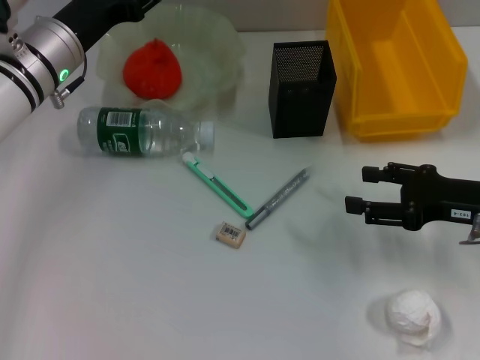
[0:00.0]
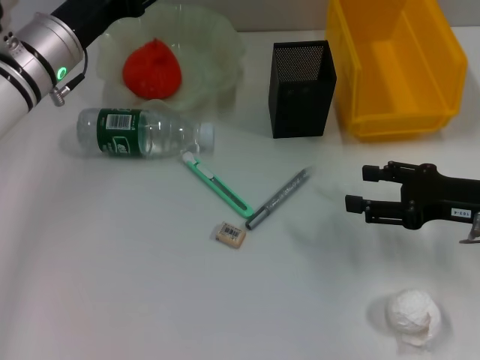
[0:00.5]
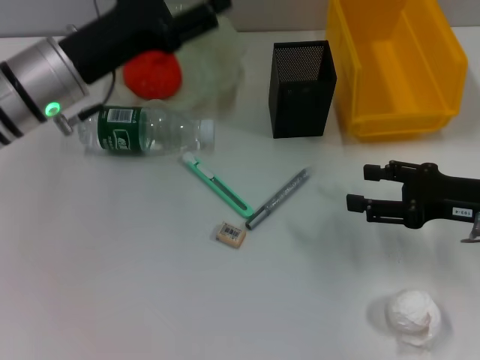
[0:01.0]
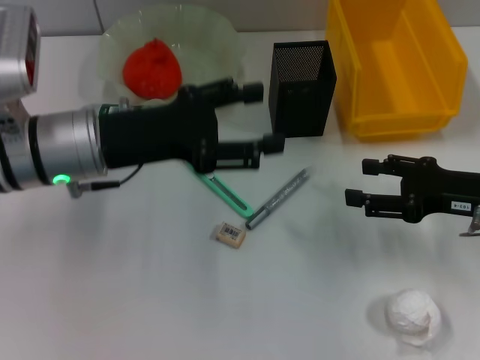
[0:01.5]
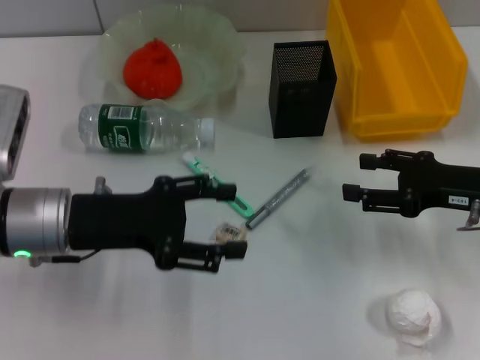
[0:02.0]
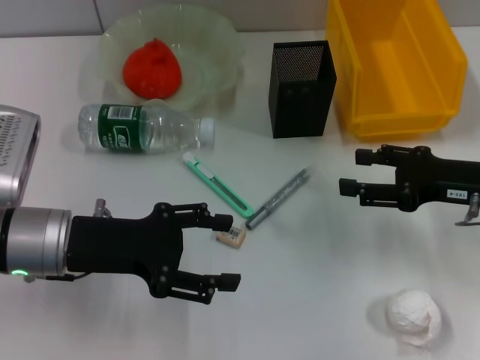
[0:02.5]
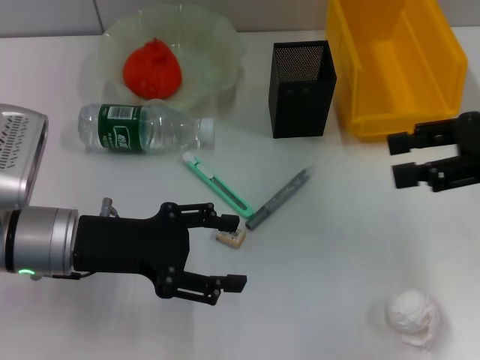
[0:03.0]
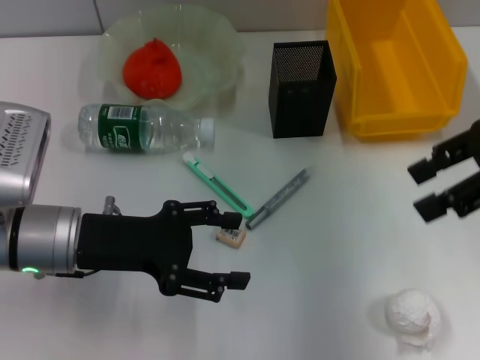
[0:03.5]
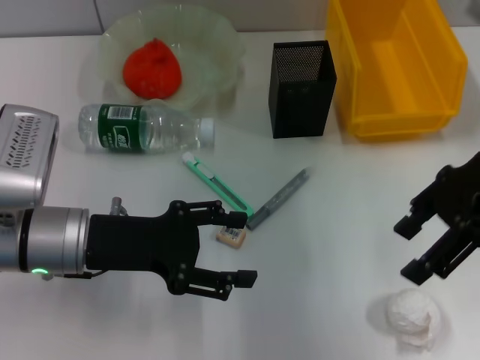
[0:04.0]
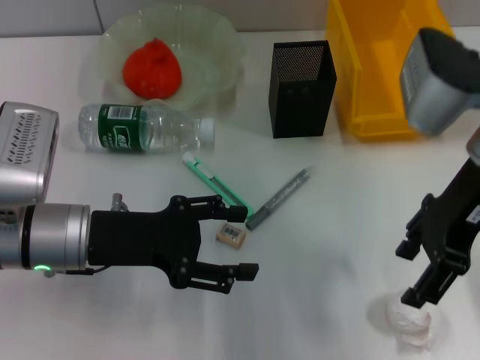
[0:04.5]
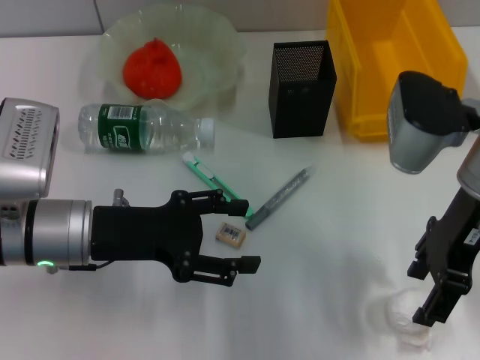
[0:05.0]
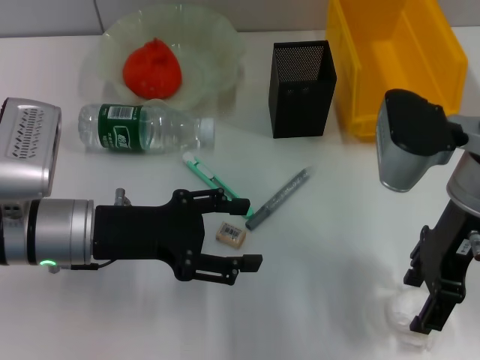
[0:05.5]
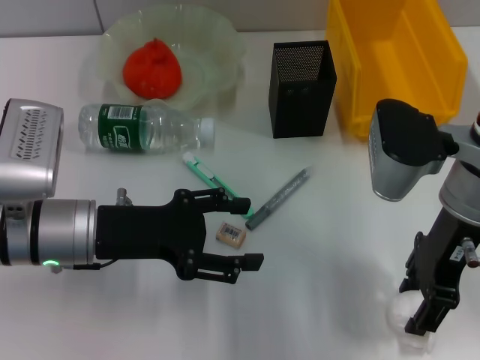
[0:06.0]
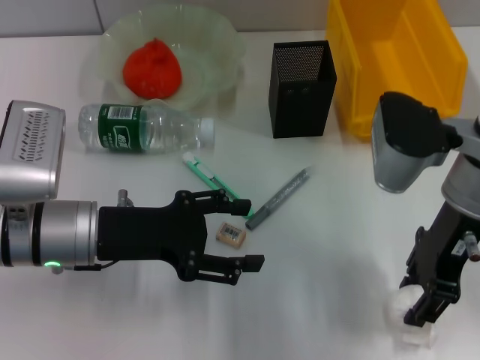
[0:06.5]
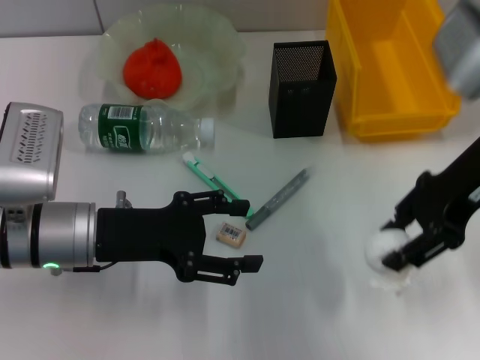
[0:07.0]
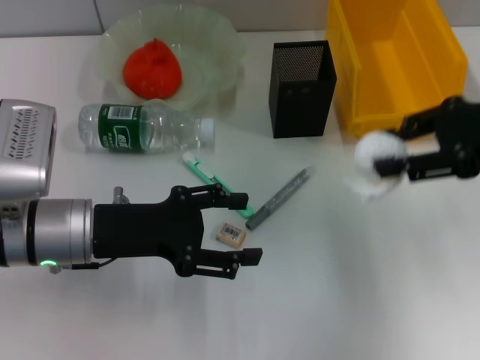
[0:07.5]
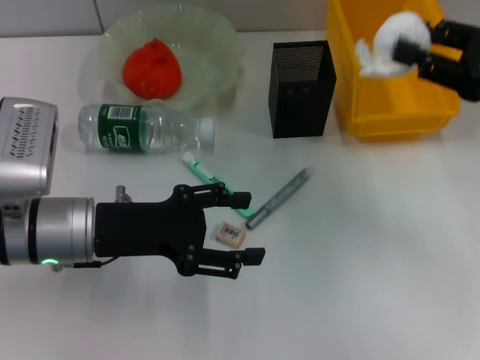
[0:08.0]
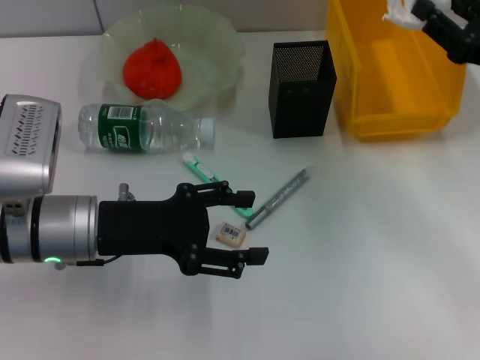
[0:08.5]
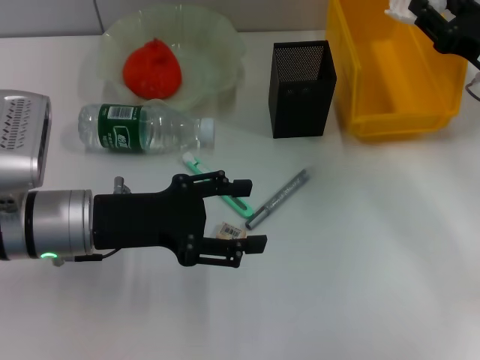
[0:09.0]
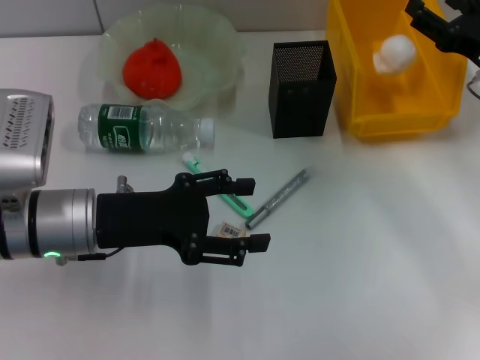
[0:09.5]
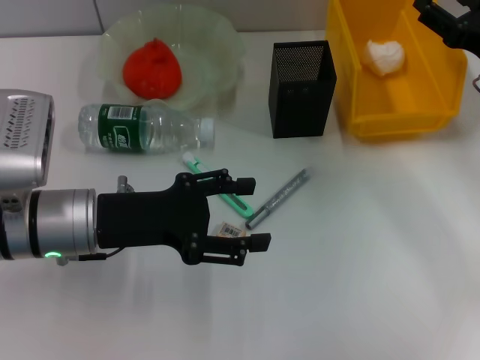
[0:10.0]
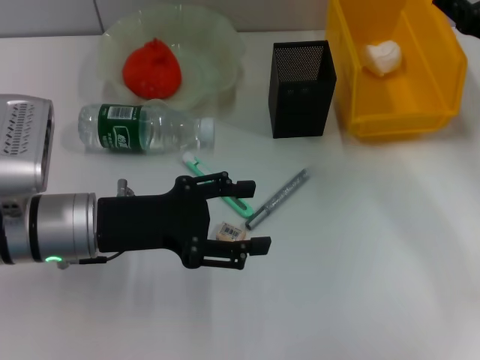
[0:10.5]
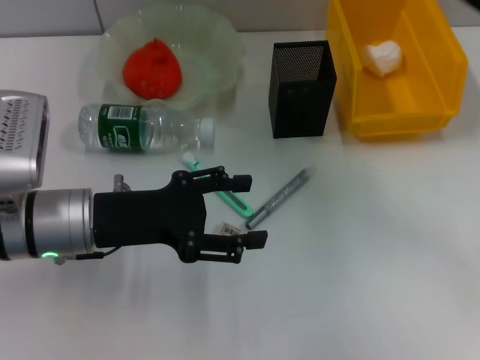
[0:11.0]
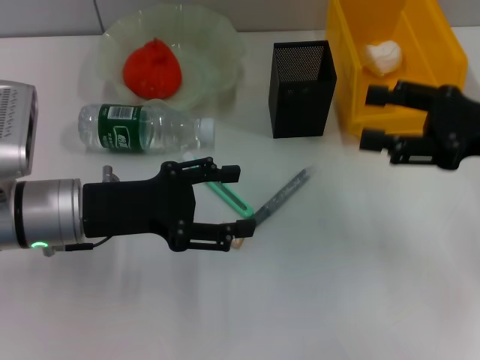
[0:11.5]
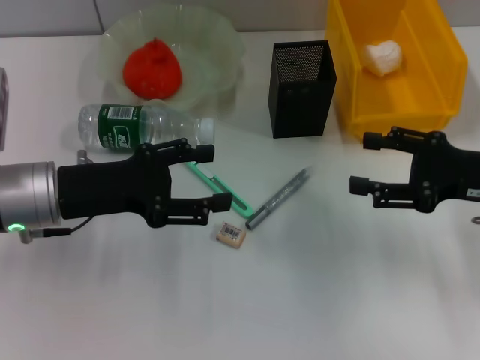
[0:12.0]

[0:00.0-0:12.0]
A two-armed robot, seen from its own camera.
Step, 0:00.0 to 0:06.0: Grab the paper ball with the right hand.
Step, 0:06.5 to 0:09.5: Place the paper ball into the trash can with the right hand.
0:00.0 to 0:02.0: The left gripper shifts some 15 cm backward.
0:02.0 to 0:04.0: The right gripper shifts about 15 cm upward and to the left.
0:04.0 to 0:06.0: The right gripper goes some 10 cm downward.
0:06.0 to 0:08.0: The right gripper moves to the right, about 15 cm, and closes up.
0:08.0 to 0:10.0: The right gripper heads downward, covering roughly 5 cm, and opens its fingers.
0:10.0 to 0:12.0: The right gripper heads backward, covering some 10 cm.

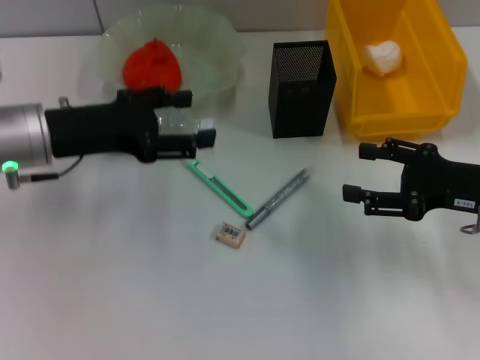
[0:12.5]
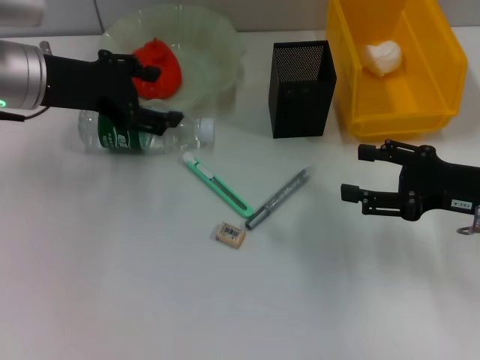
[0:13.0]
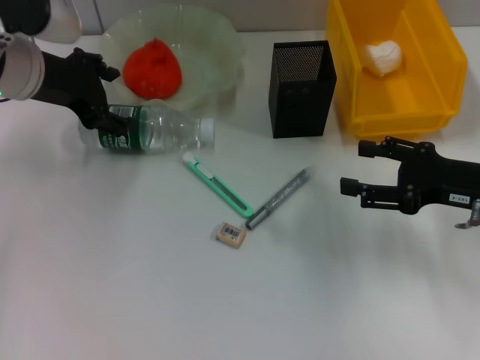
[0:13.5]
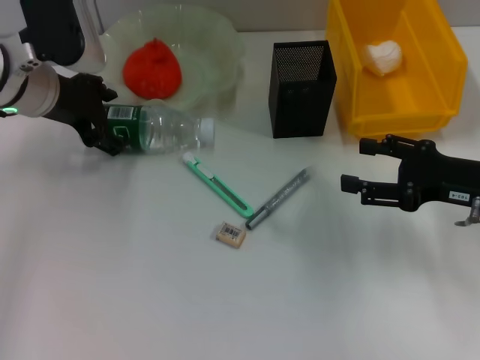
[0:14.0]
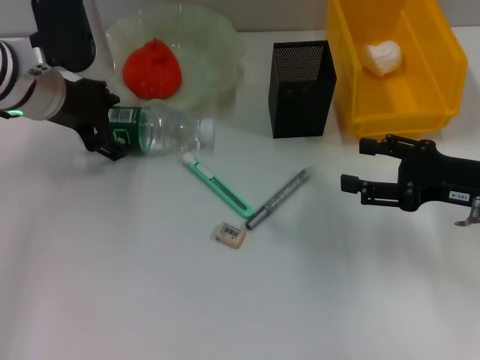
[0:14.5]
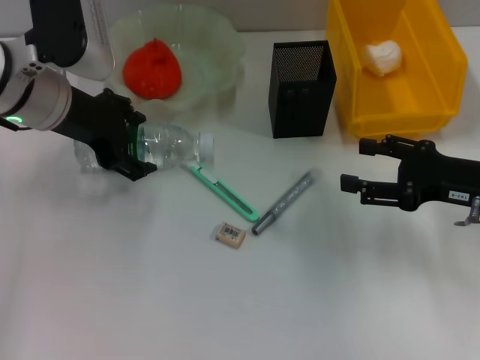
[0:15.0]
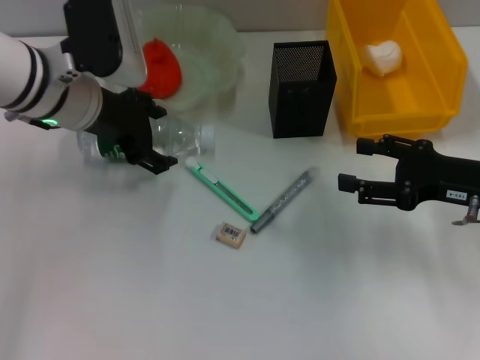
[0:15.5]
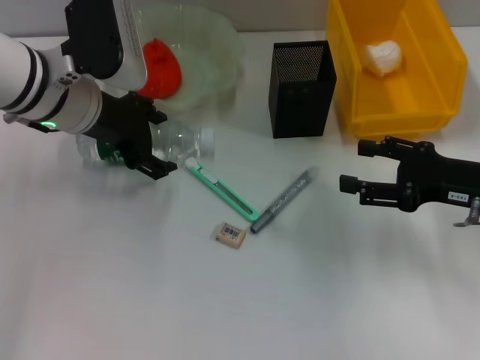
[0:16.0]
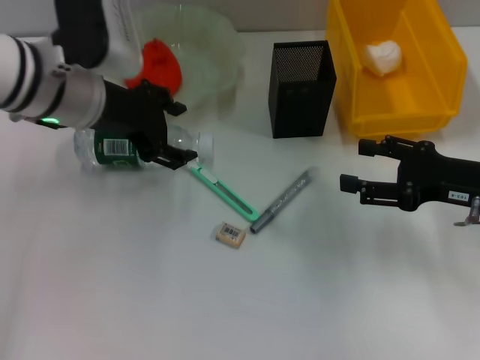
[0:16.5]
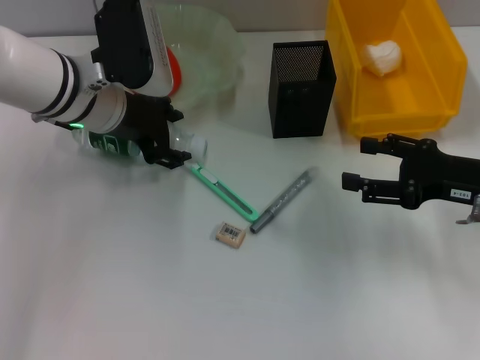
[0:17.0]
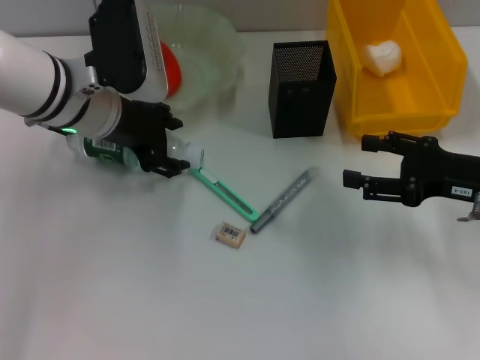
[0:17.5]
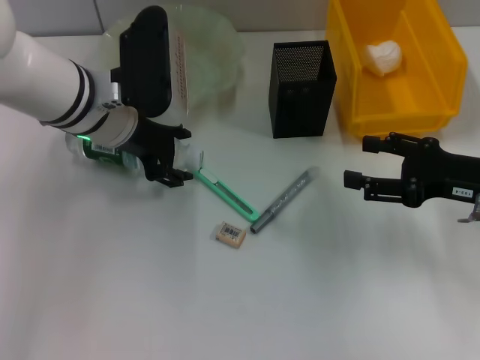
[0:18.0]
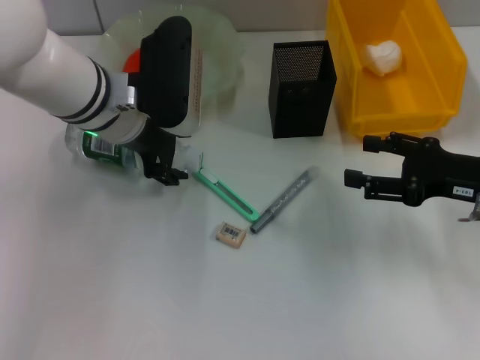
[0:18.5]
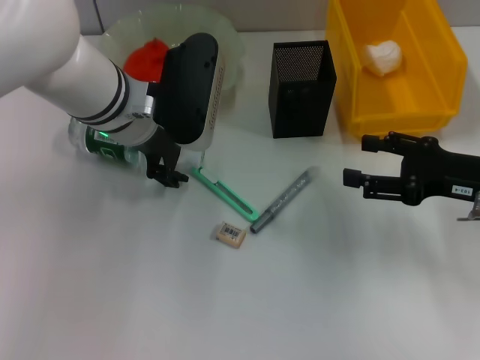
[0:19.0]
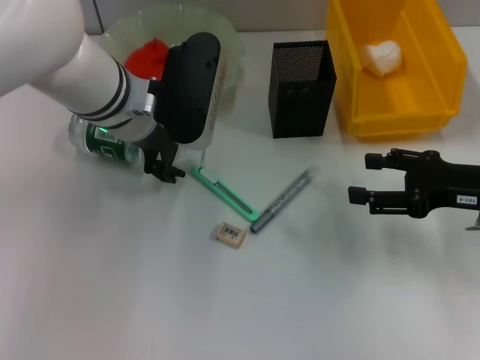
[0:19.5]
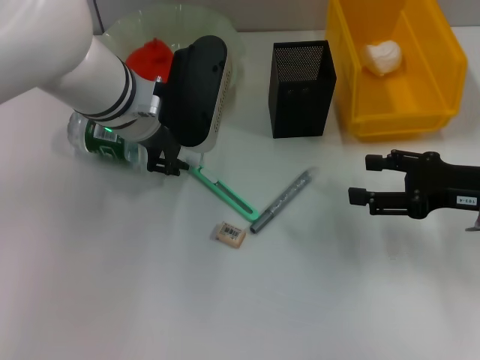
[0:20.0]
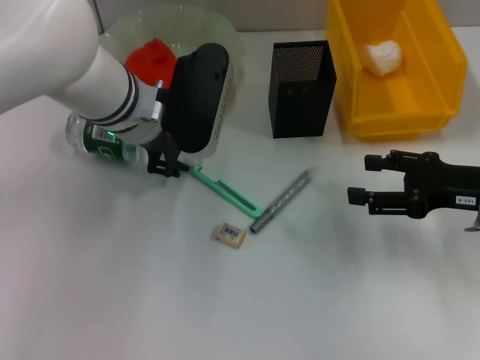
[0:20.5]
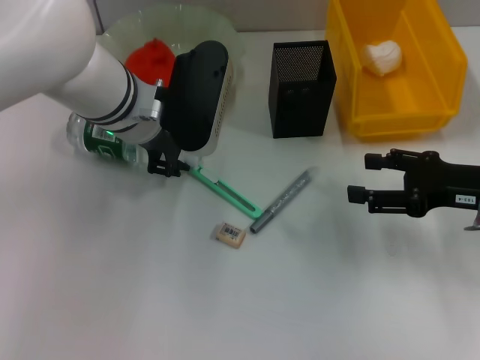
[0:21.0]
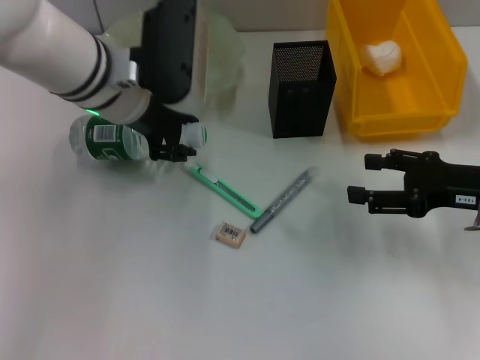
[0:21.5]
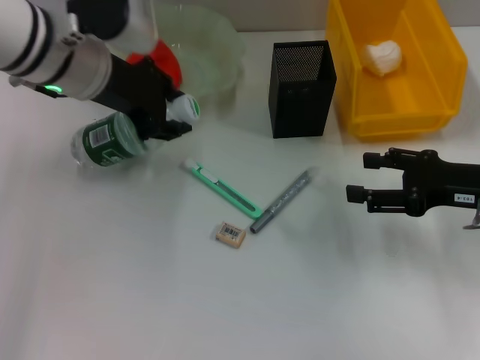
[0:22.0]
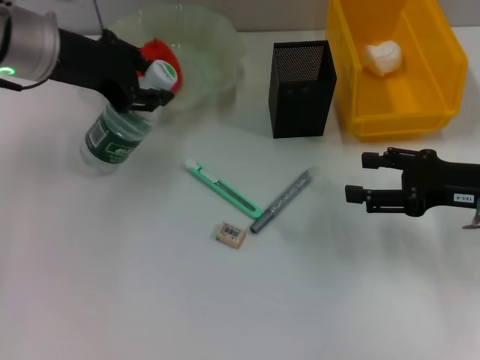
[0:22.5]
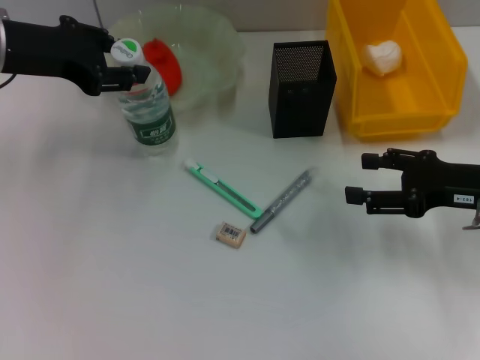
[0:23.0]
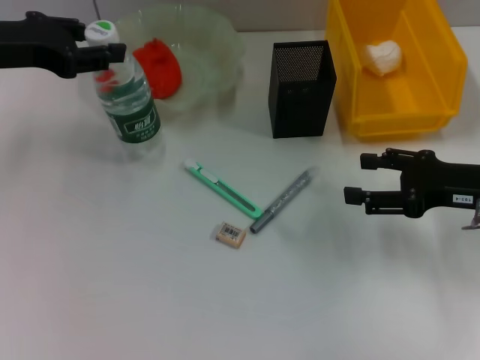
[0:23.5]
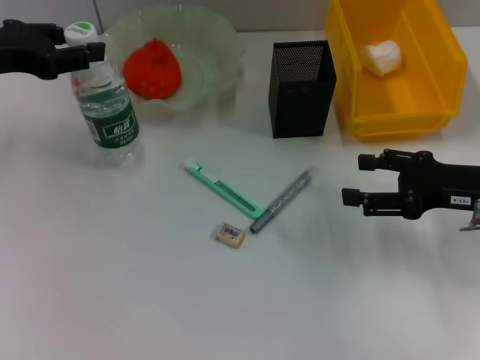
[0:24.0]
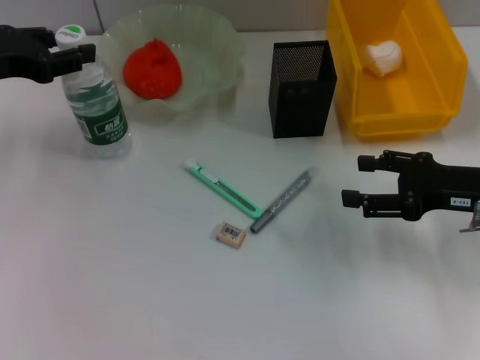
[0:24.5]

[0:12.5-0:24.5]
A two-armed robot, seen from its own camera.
Step, 0:12.5 to 0:20.5: Grab the water bottle with the left hand.
0:12.5 to 0:14.5: The left gripper travels forward by approximately 5 cm.
0:14.5 to 0:16.5: There are only small adjustments of the grippers.
0:18.5 to 0:20.5: There are only small adjustments of the grippers.
0:20.5 to 0:22.5: The left gripper goes approximately 10 cm to the left and upward.
0:22.5 to 0:24.5: The left gripper moves to the left, some 10 cm.

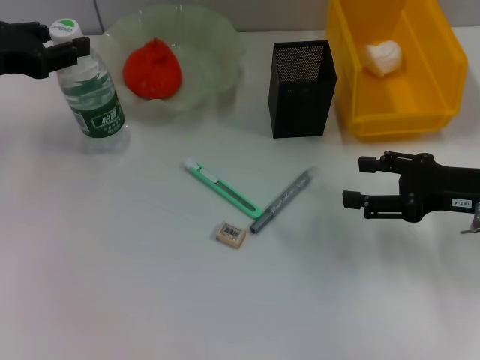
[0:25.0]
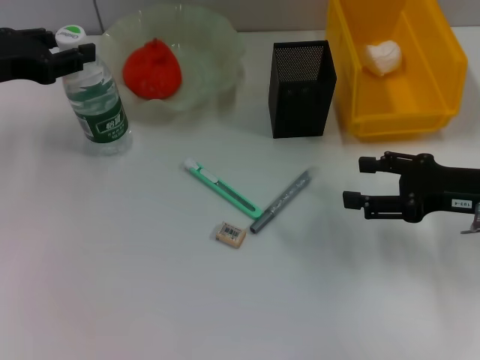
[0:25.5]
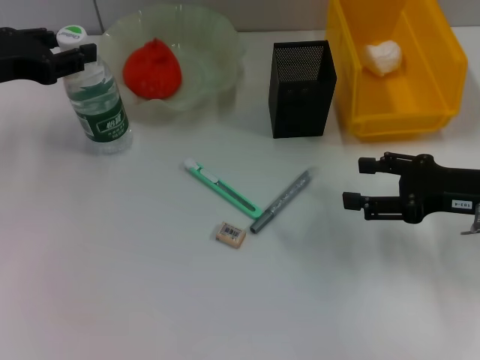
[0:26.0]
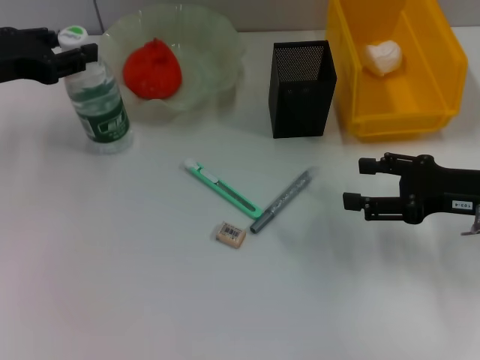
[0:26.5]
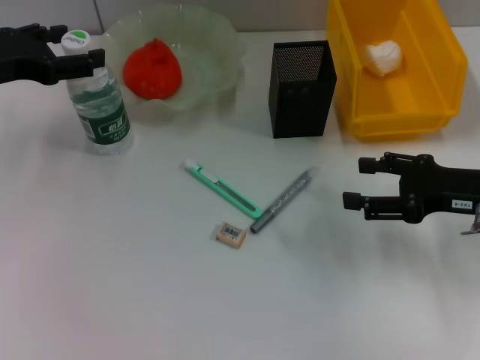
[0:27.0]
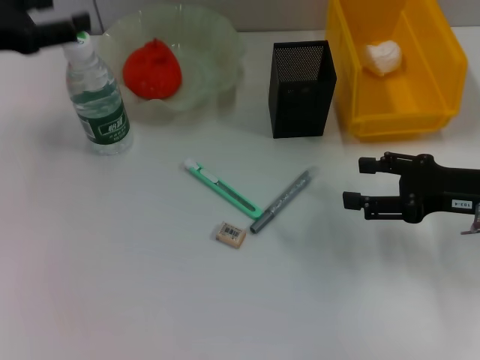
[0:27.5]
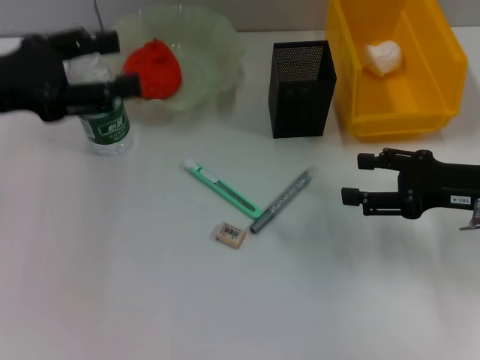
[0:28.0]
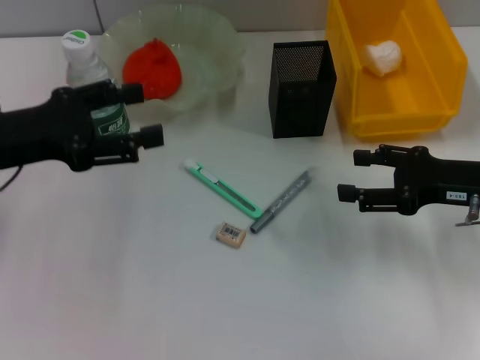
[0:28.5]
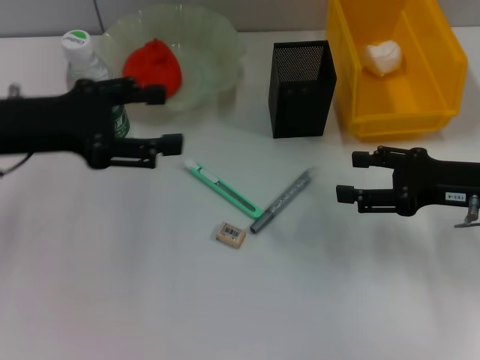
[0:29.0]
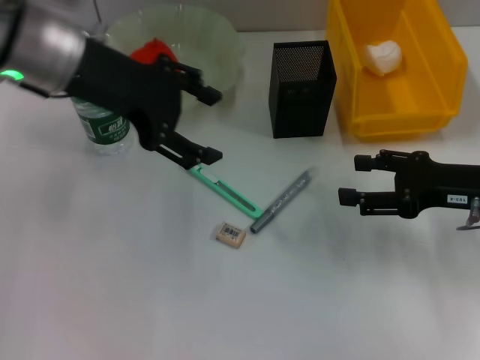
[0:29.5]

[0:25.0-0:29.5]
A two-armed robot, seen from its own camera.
0:25.0 to 0:27.0: The left gripper opens its fingers.
0:27.0 to 0:29.5: The left gripper goes approximately 15 cm to the right and upward.
